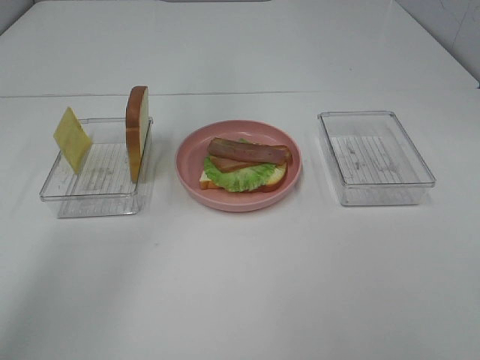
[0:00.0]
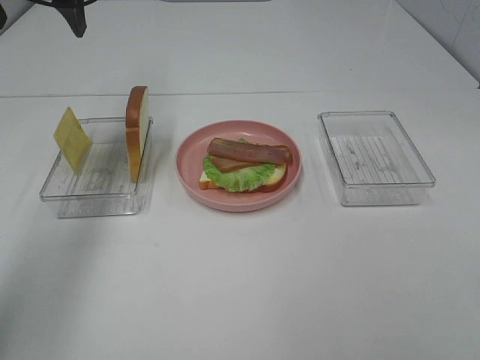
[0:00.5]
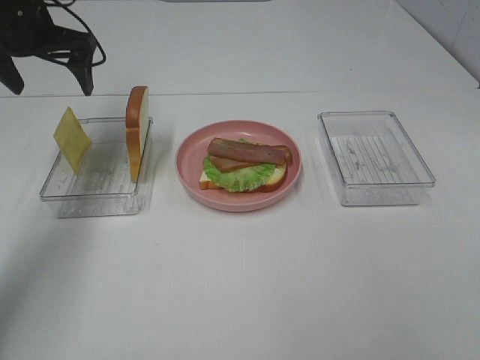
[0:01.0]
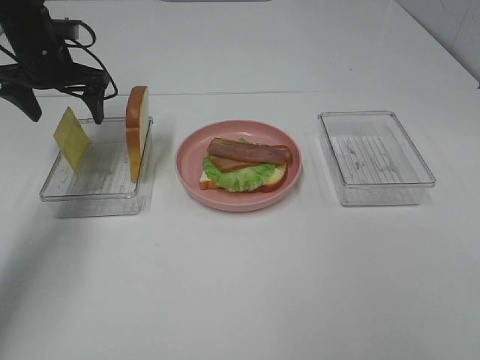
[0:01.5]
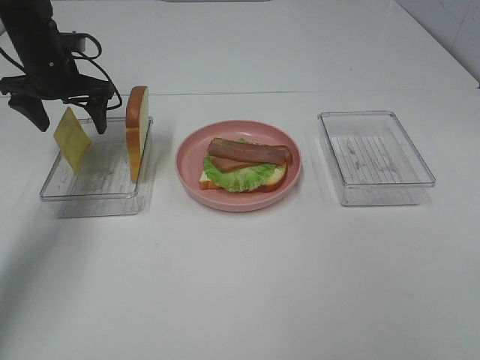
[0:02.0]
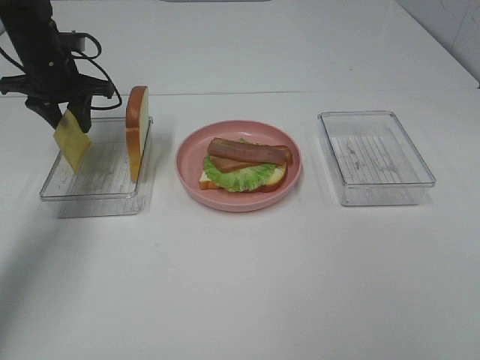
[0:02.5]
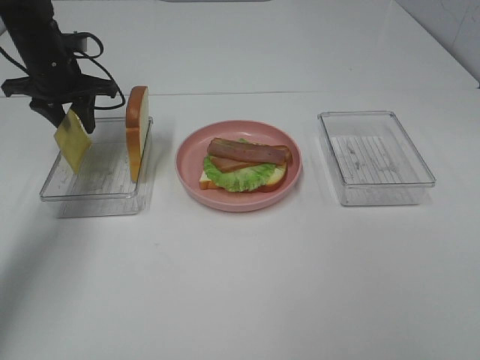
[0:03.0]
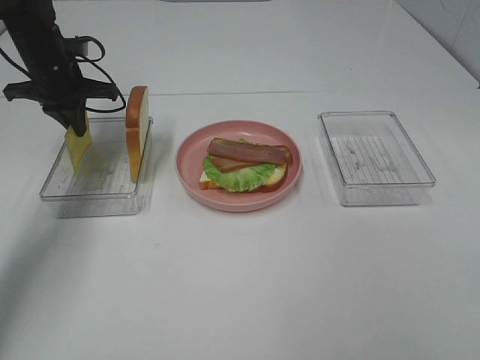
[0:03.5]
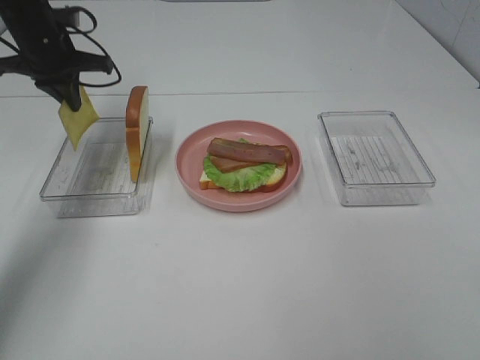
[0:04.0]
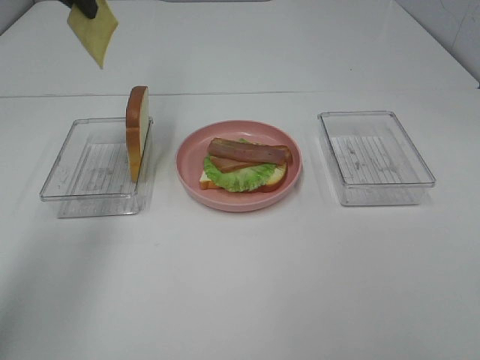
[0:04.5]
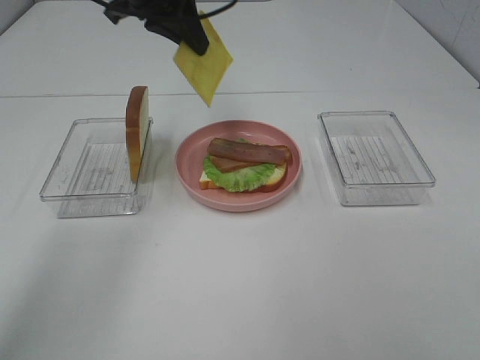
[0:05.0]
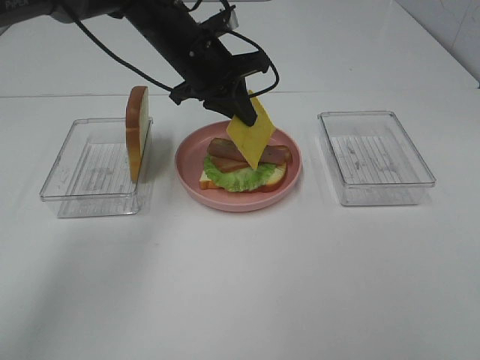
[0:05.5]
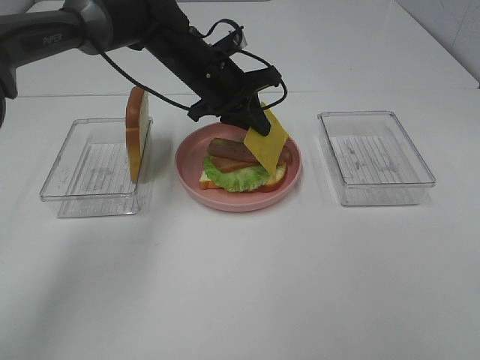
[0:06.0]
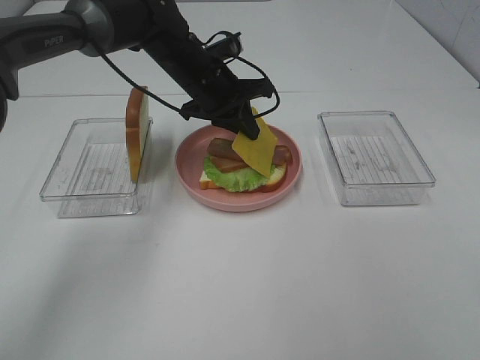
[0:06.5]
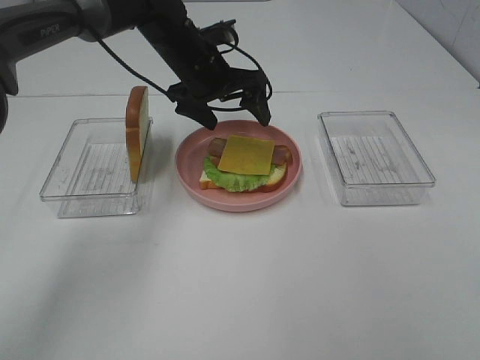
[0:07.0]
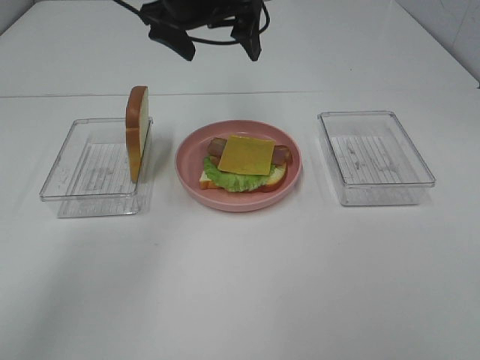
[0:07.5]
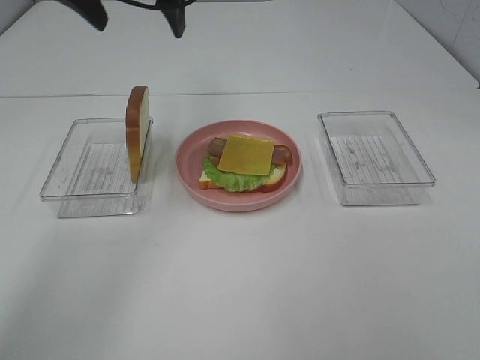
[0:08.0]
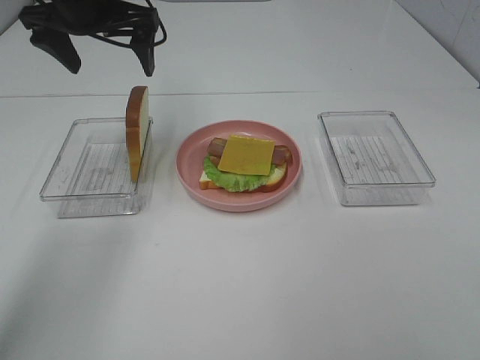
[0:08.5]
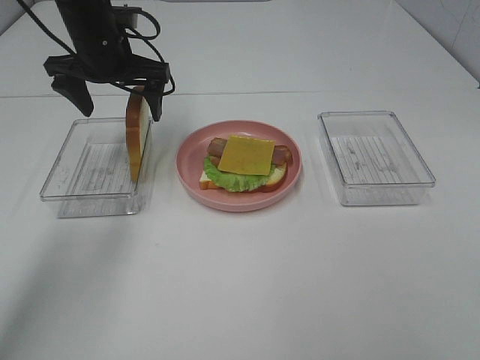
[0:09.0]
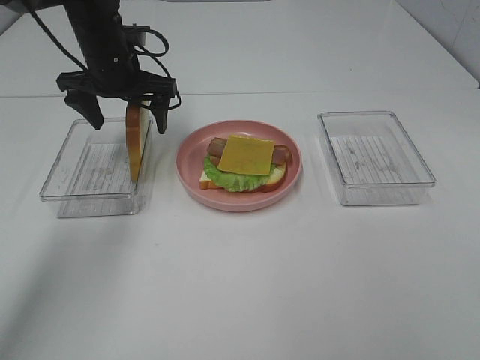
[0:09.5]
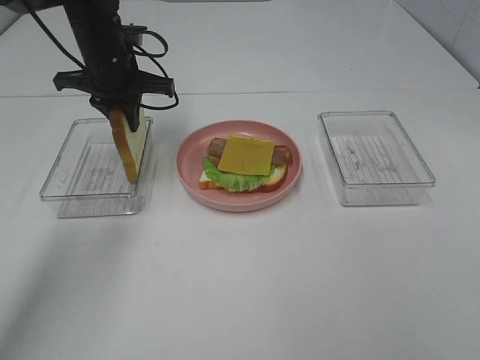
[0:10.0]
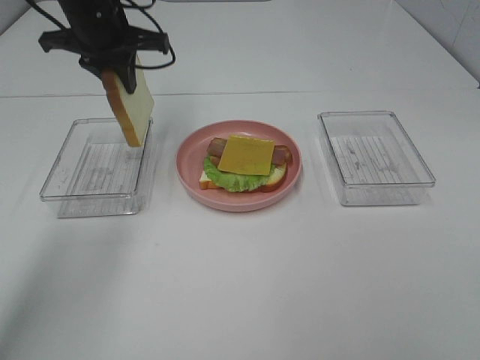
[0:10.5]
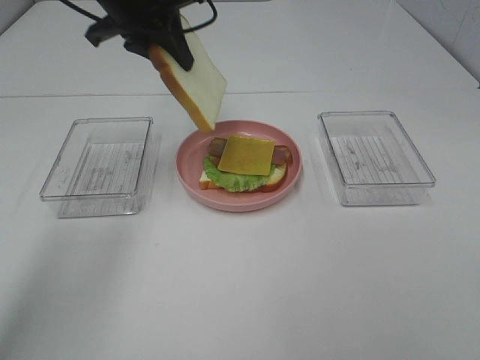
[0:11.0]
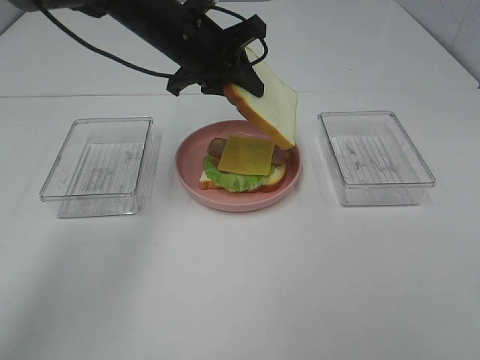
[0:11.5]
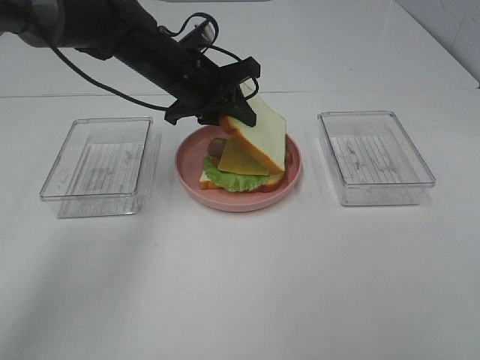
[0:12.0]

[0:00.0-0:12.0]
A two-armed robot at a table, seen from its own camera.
Task of the whole recording: Make sandwiches.
Step, 0:00.0 to 0:03.5: Left hand:grab the cheese slice.
Step, 0:04.0 to 0:07.0: Left hand:place the cheese slice on top of the bacon.
Step, 0:07.5 to 0:10.0: Left hand:grab the bread slice.
0:00.0 to 0:02.0: The left gripper heads downward and to the left, covering approximately 25 cm.
0:02.0 to 0:04.0: The left gripper closes.
0:04.0 to 0:06.0: The left gripper is displaced to the right by roughly 20 cm.
0:06.0 to 0:08.0: The left gripper is displaced upward and to the left by about 20 cm, and opens up.
0:08.0 to 0:10.0: The left gripper moves downward, some 15 cm, and closes.
0:10.0 to 0:12.0: The left gripper moves to the right, roughly 10 cm, and moves about 10 cm upward and comes back.

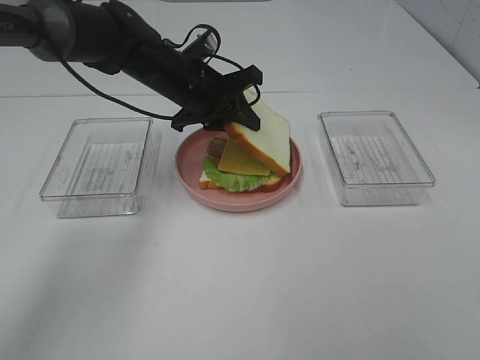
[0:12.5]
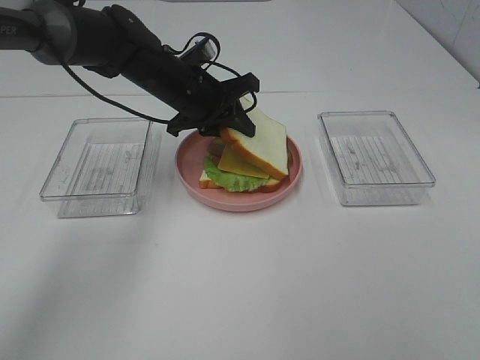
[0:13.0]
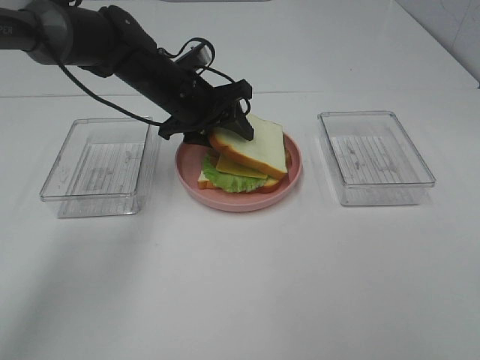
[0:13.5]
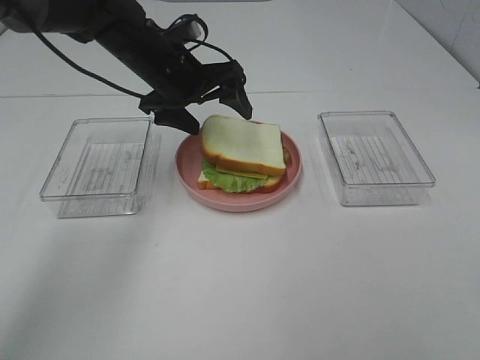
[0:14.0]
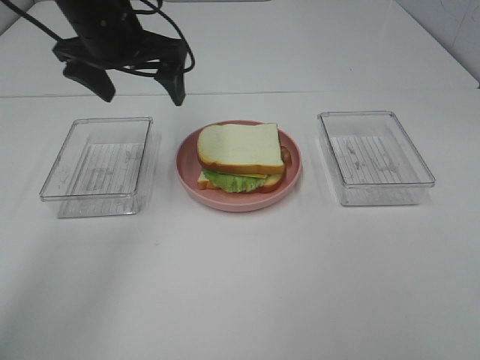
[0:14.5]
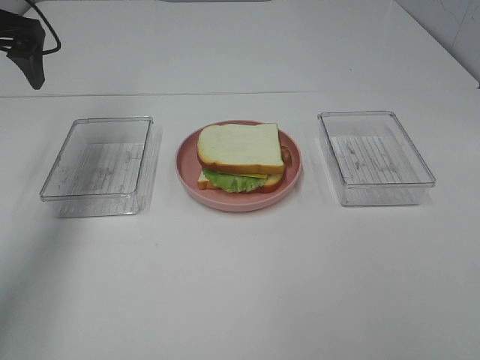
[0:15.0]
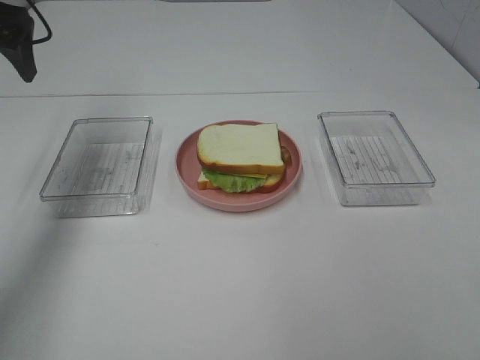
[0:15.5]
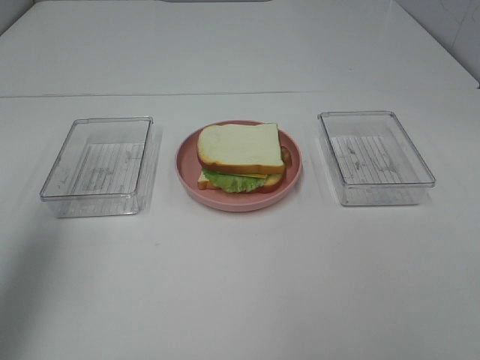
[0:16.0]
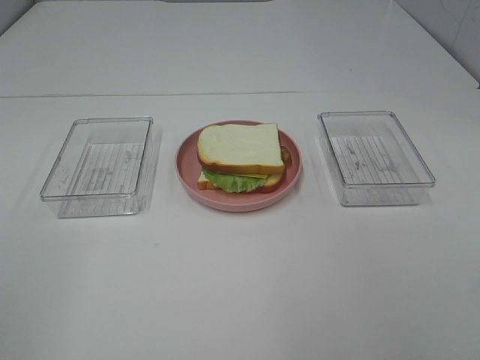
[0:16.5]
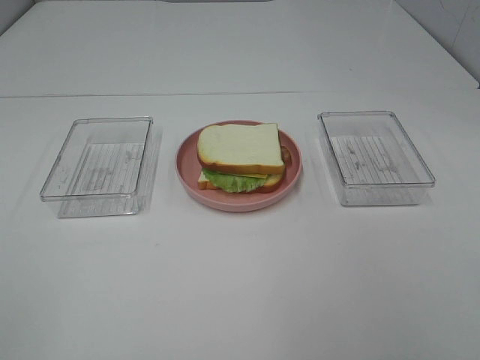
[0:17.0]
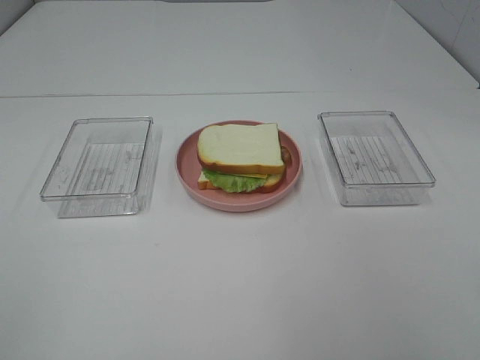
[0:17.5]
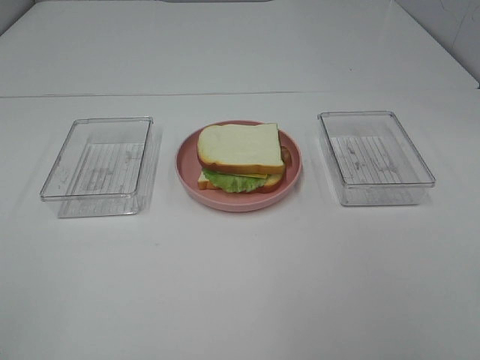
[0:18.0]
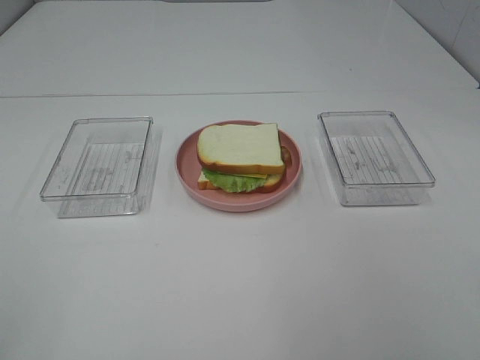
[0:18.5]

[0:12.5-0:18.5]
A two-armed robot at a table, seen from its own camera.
Task of the whole recording: Make sandwiches.
0:12.5 to 0:14.5: The left gripper moves upward and to the left, about 15 cm, and opens its fingers.
0:14.5 to 0:16.5: The left gripper shifts some 40 cm backward and to the left.
